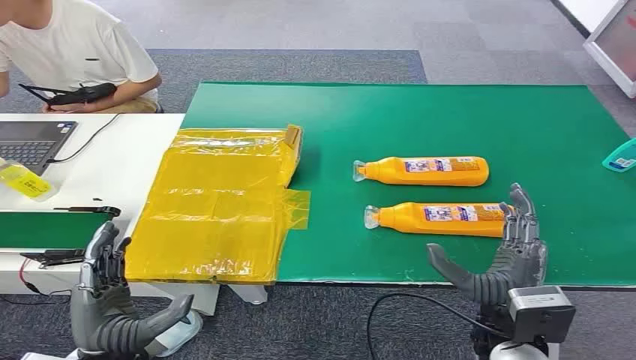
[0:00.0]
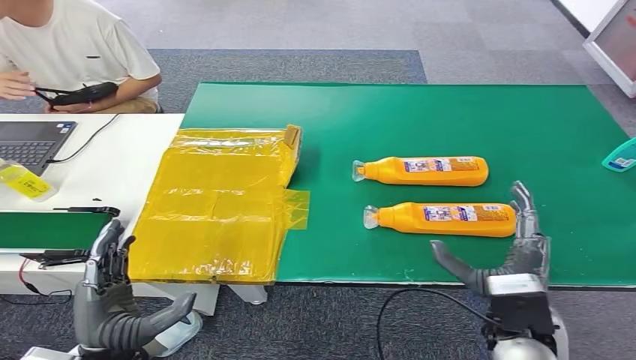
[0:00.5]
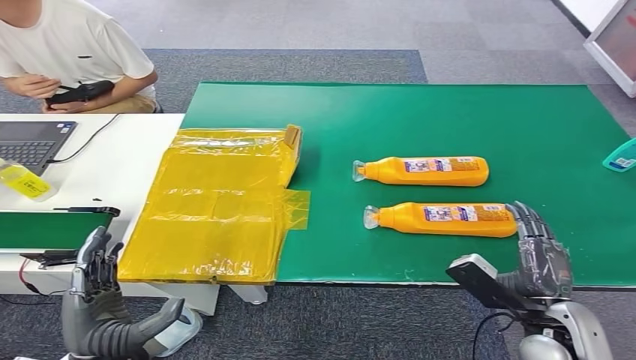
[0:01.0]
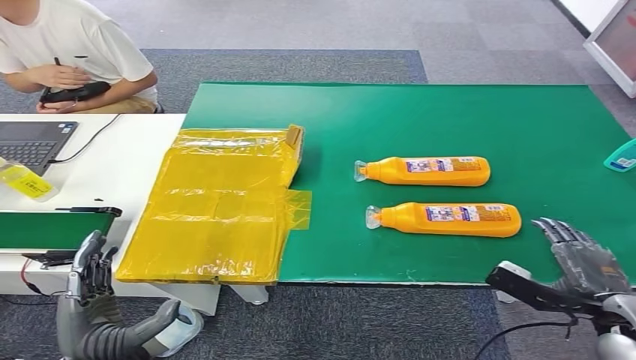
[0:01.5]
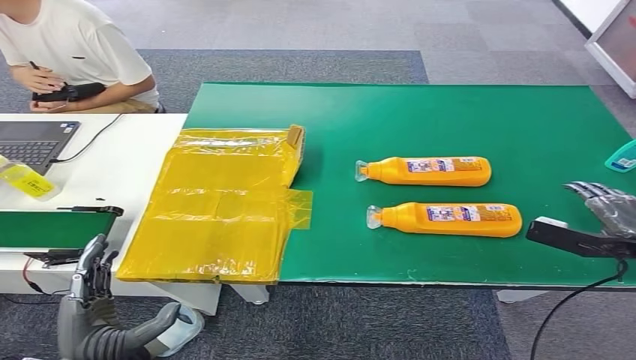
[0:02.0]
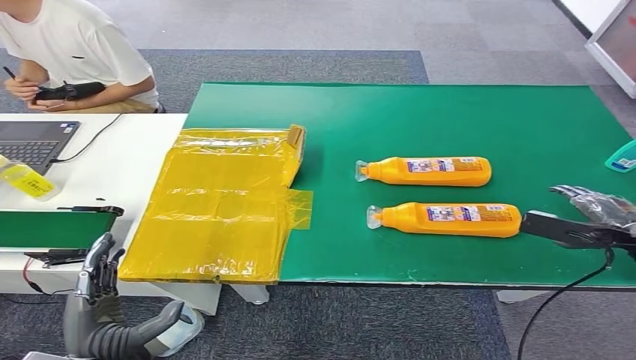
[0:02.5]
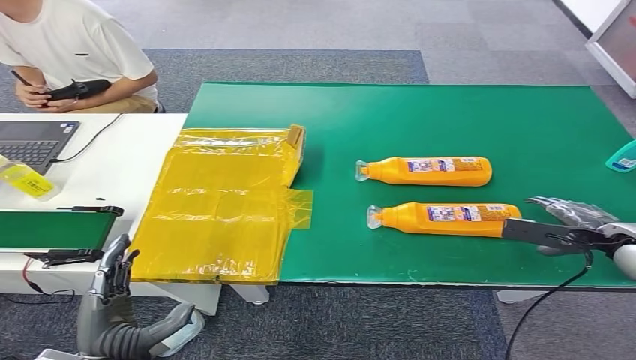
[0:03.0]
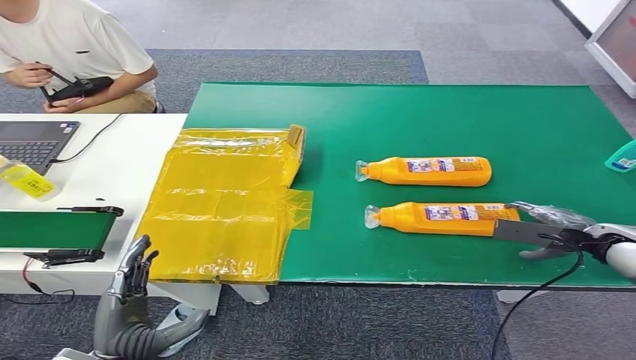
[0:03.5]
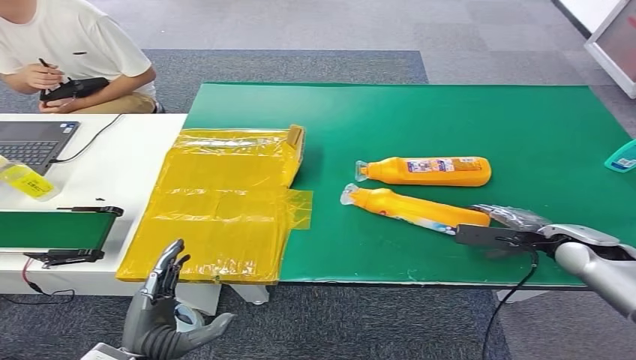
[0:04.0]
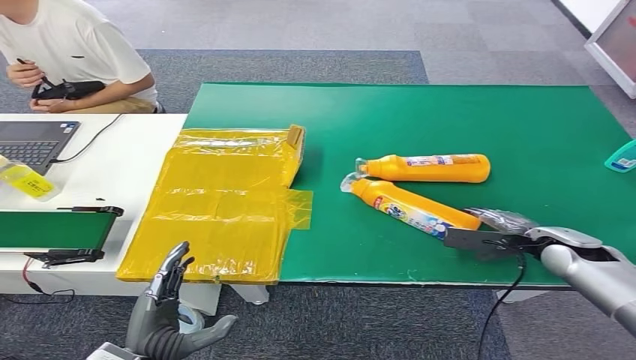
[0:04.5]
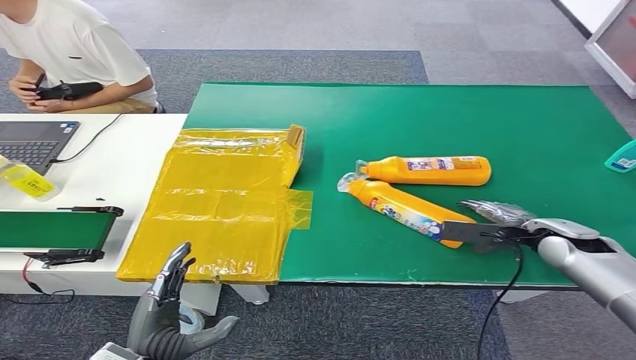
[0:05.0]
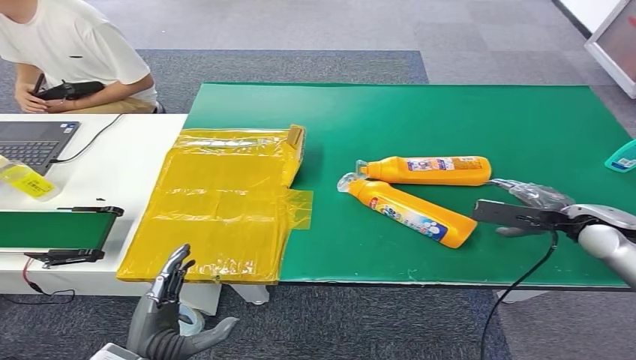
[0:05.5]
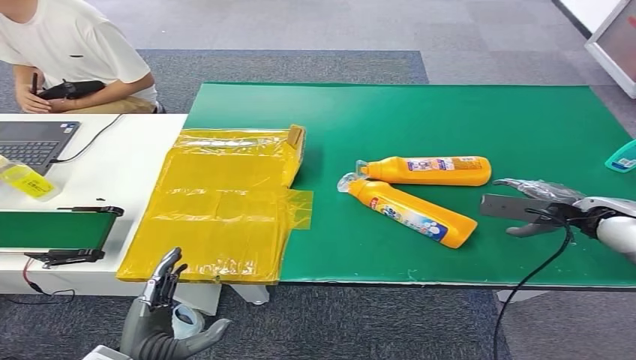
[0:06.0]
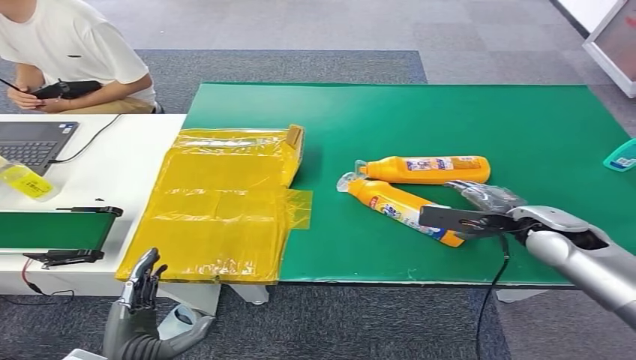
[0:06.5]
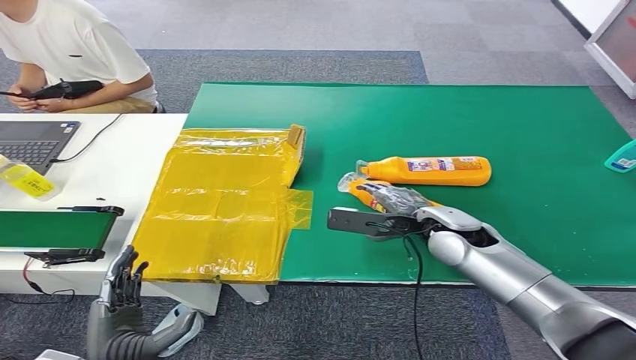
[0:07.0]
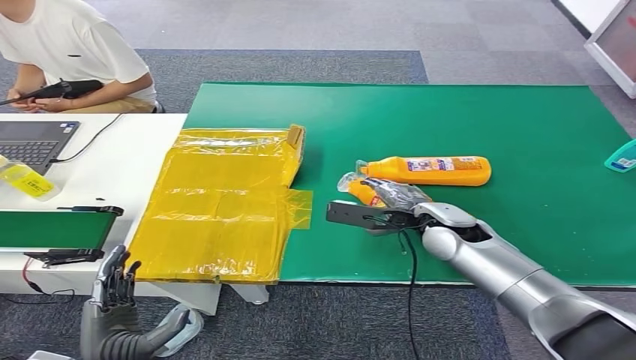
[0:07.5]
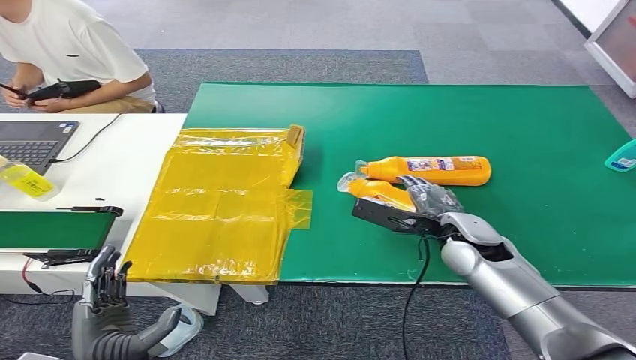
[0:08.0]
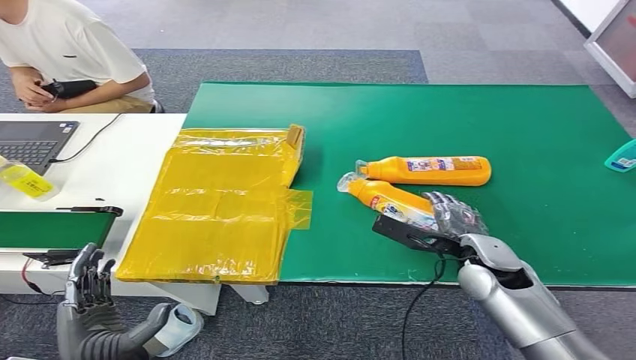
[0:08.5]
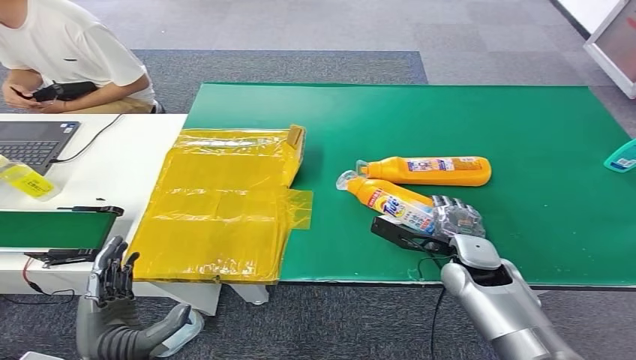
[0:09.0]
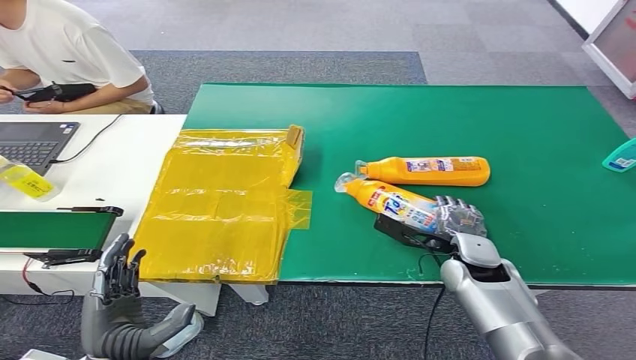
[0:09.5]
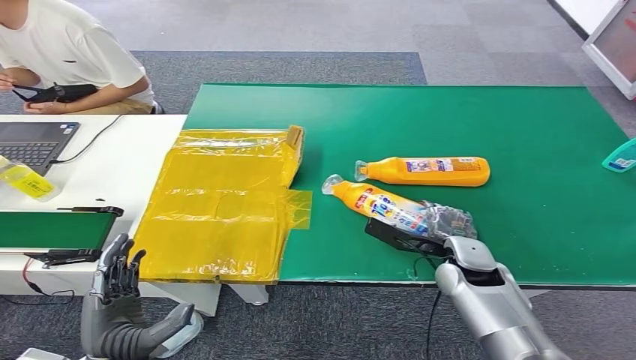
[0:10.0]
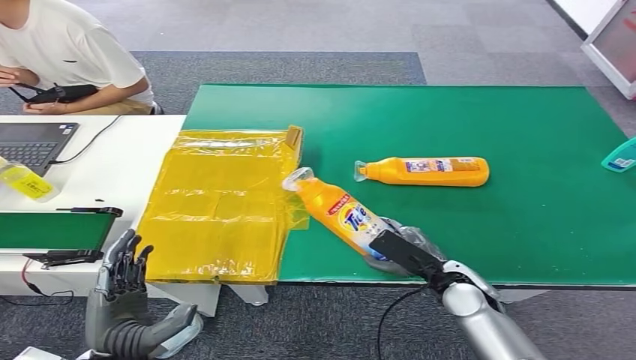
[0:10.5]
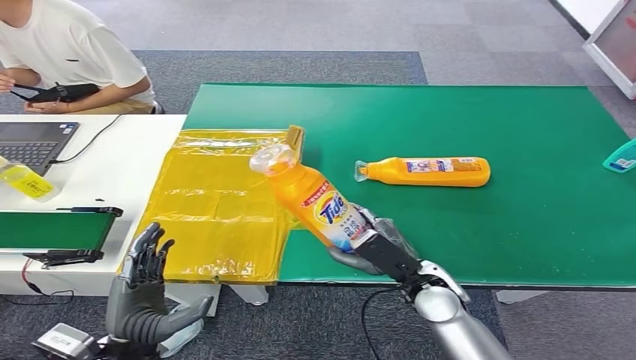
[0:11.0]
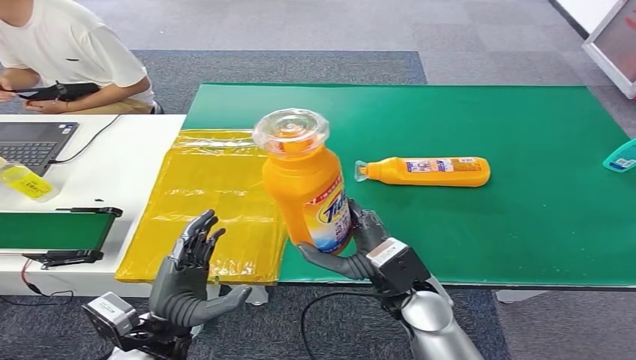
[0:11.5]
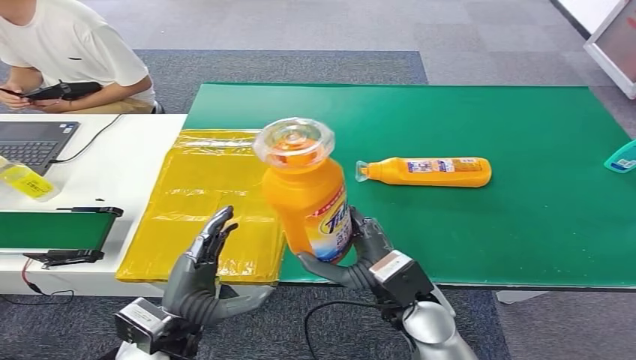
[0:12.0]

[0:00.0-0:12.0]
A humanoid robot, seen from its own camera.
Step, 0:00.0 to 0:11.0: Pick up the bottle from the table.
0:02.0 to 0:04.0: The right hand goes roughly 15 cm forward, downward and to the left.
0:04.0 to 0:06.0: The right hand goes some 10 cm upward.
0:06.0 to 0:08.0: The right hand shifts some 20 cm to the left.
0:08.0 to 0:10.0: The right hand shifts roughly 5 cm downward.
0:10.0 to 0:12.0: The left hand moves forward and to the right, roughly 10 cm; the right hand heads to the left and backward, covering approximately 15 cm.

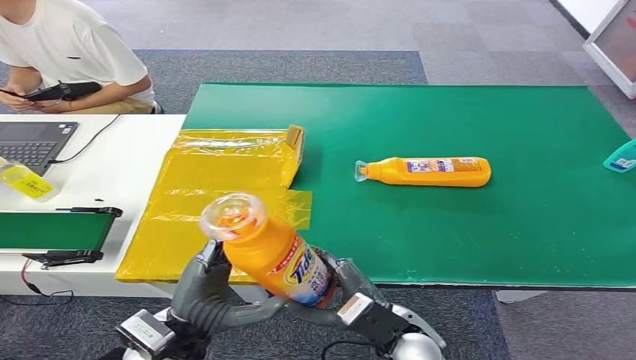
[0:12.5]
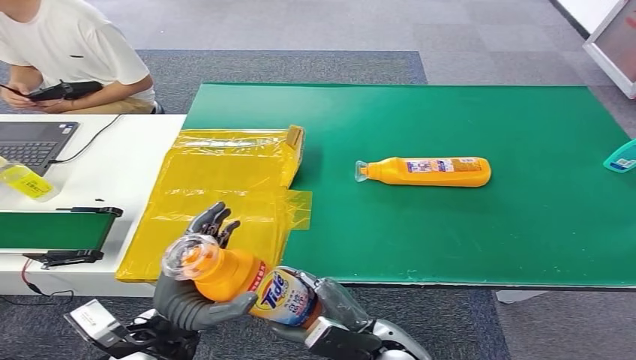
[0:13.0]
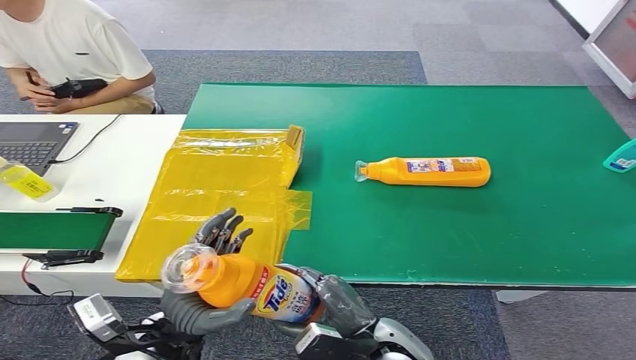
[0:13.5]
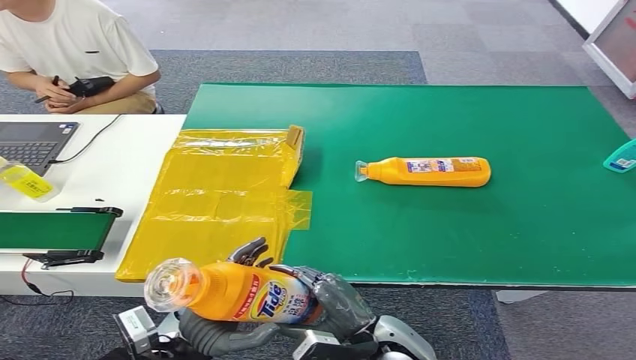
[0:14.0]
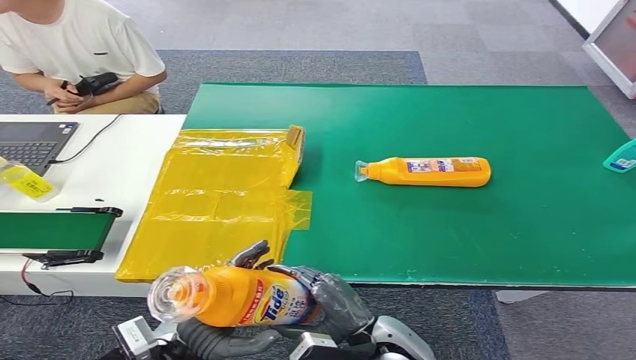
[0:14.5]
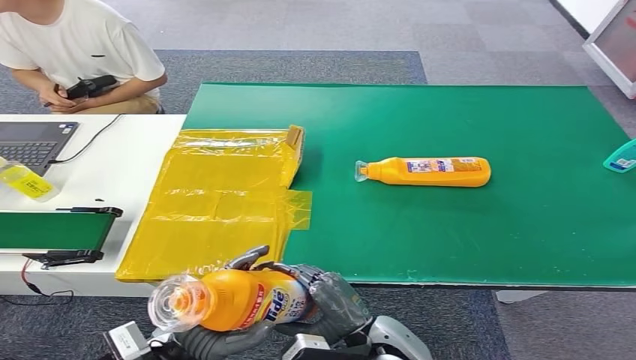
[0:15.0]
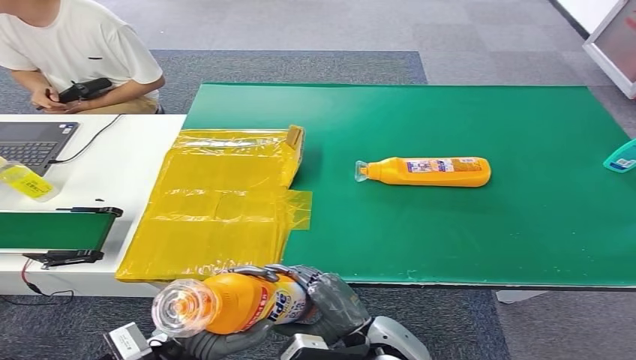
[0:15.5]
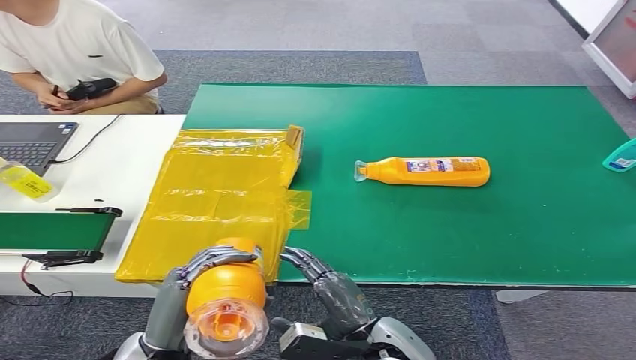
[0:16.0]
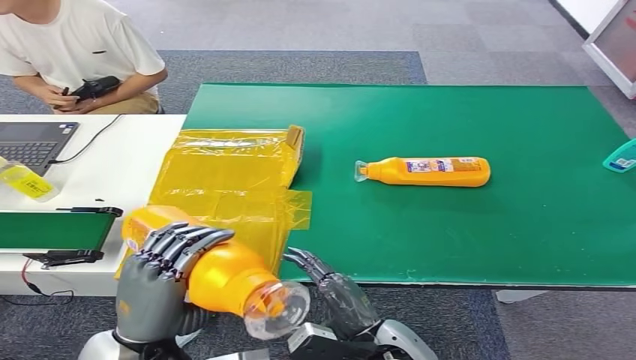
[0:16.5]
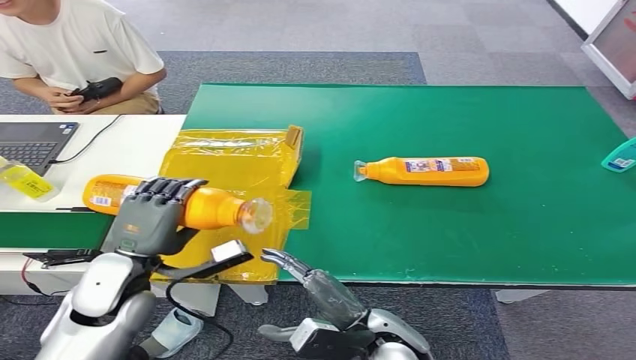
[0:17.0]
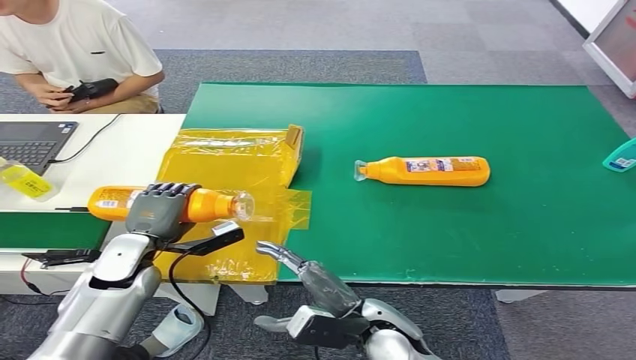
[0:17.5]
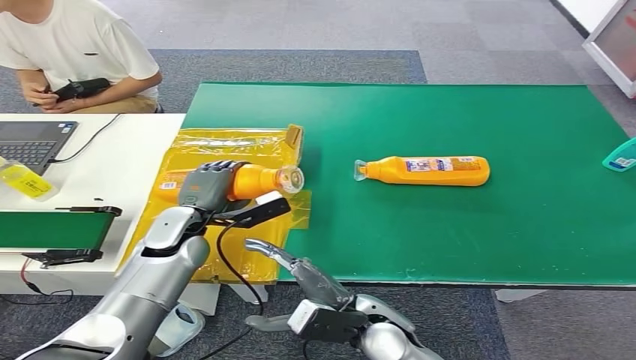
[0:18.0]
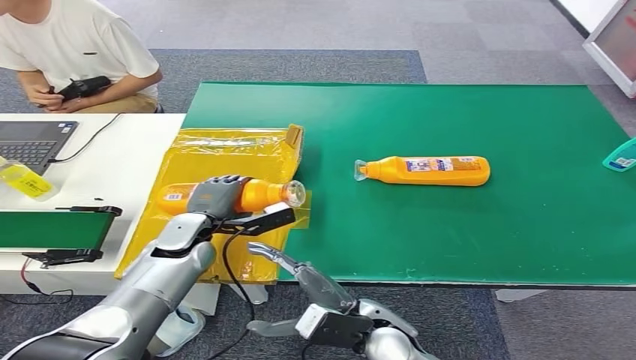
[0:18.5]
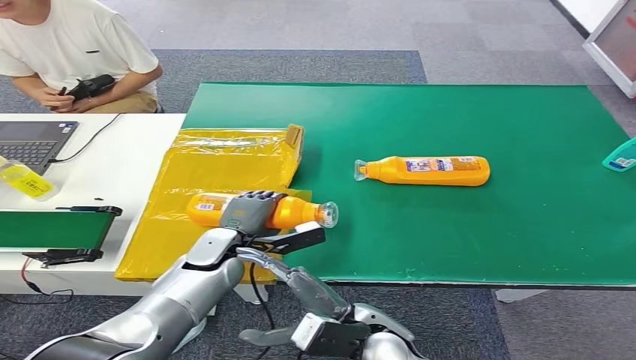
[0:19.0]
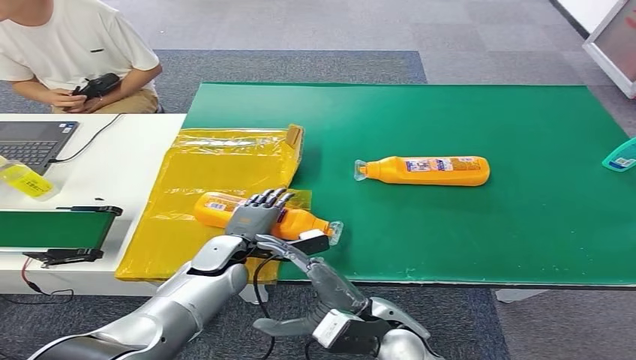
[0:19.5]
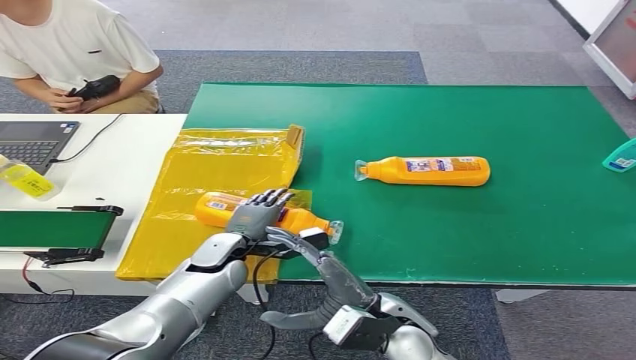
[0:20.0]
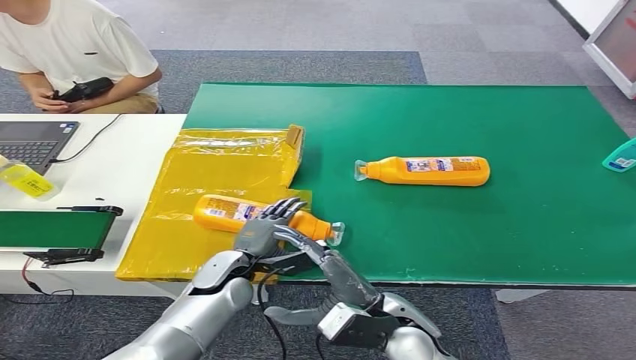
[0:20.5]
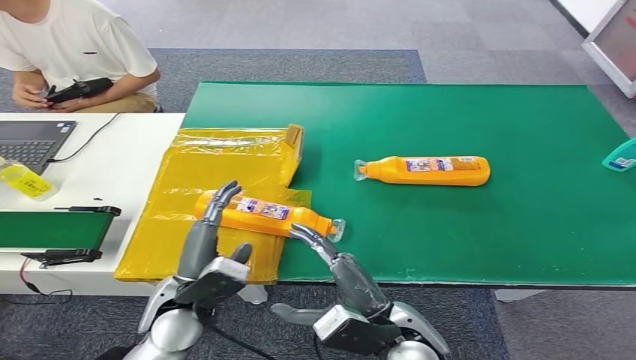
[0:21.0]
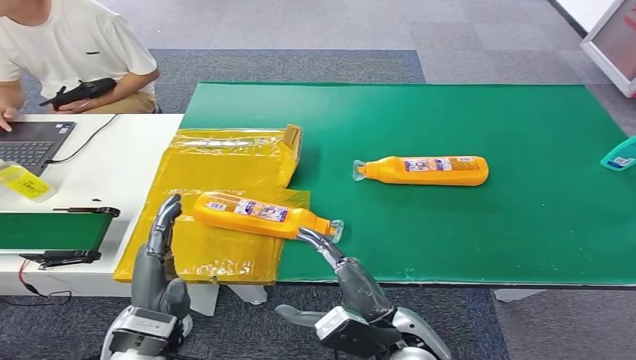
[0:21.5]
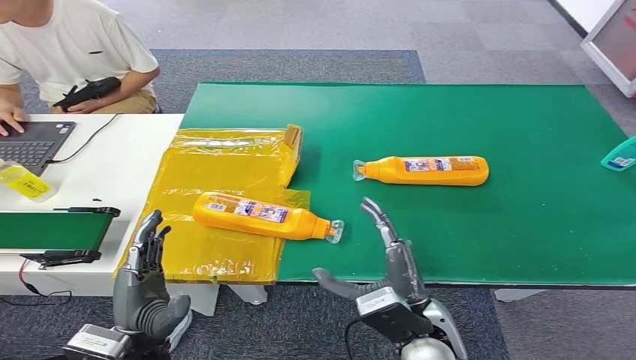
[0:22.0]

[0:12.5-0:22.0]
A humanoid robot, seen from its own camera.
Step, 0:12.5 to 0:22.0: Turn the bottle to the front side.
0:14.5 to 0:16.5: The left hand travels upward by roughly 10 cm.
0:16.5 to 0:18.0: The left hand goes some 20 cm forward; the right hand ends up some 5 cm from where it was.
0:18.0 to 0:20.0: The left hand is displaced downward and to the right by roughly 10 cm.
0:20.0 to 0:22.0: The left hand is displaced backward by some 20 cm.
